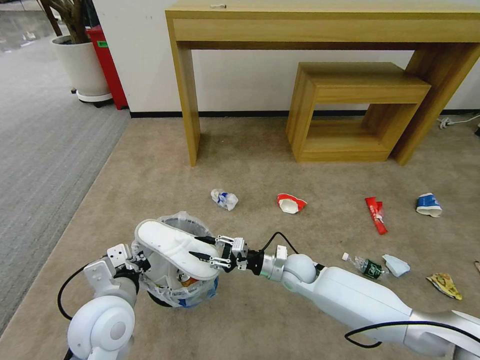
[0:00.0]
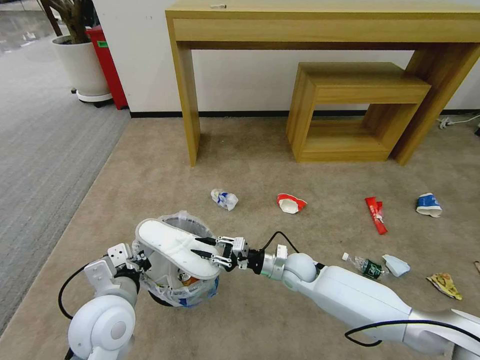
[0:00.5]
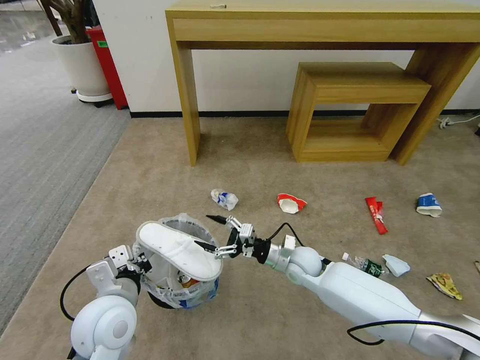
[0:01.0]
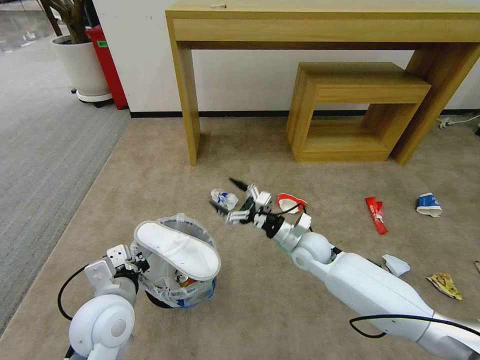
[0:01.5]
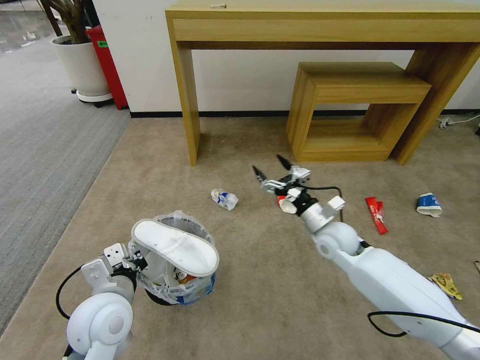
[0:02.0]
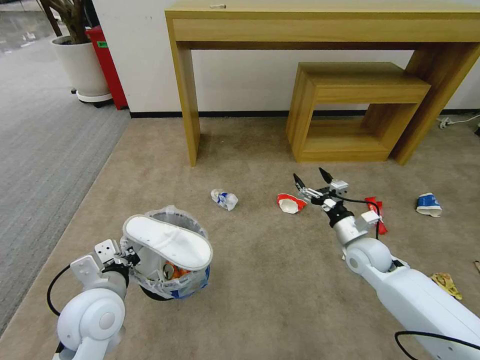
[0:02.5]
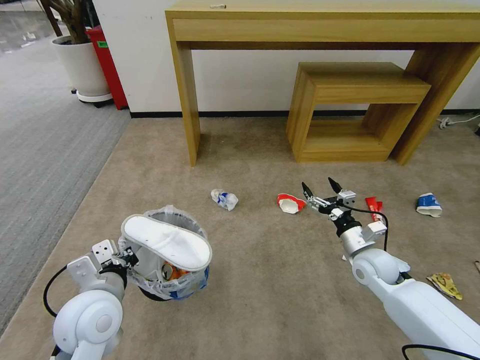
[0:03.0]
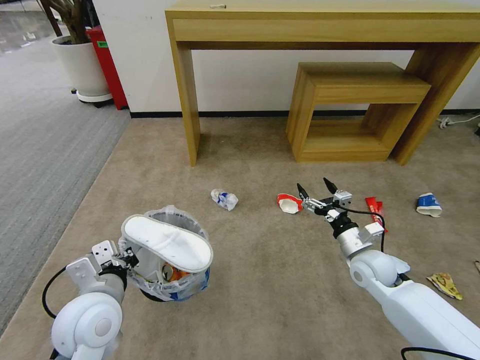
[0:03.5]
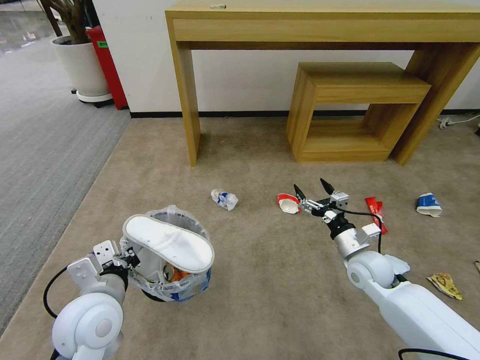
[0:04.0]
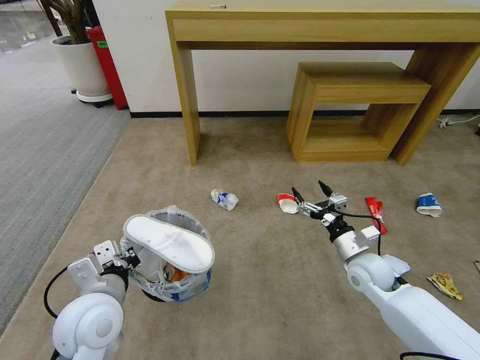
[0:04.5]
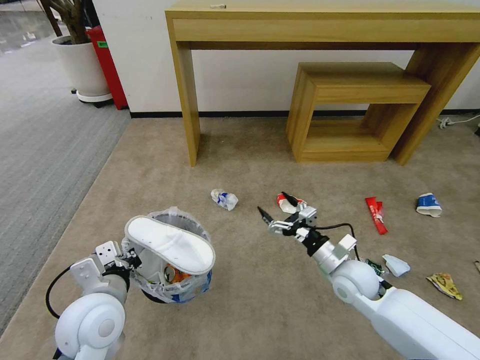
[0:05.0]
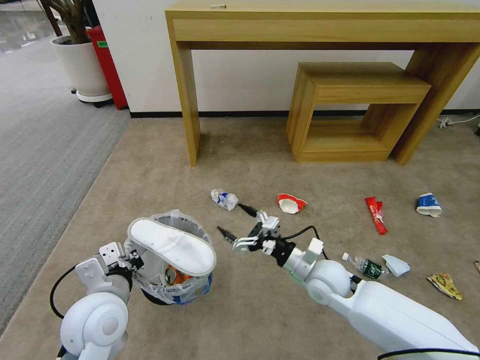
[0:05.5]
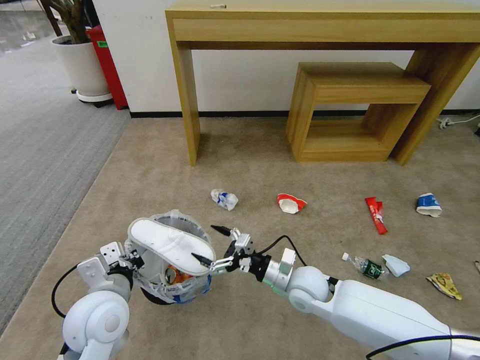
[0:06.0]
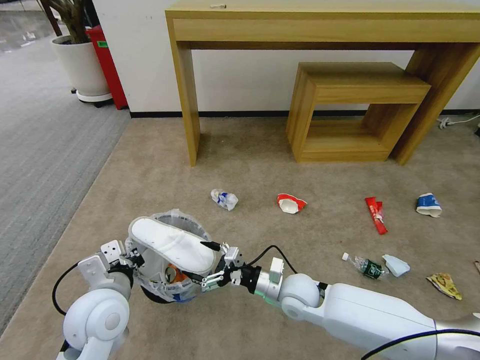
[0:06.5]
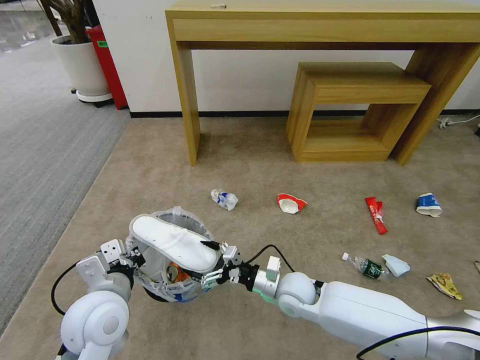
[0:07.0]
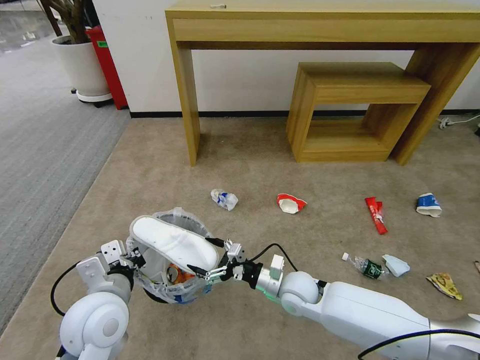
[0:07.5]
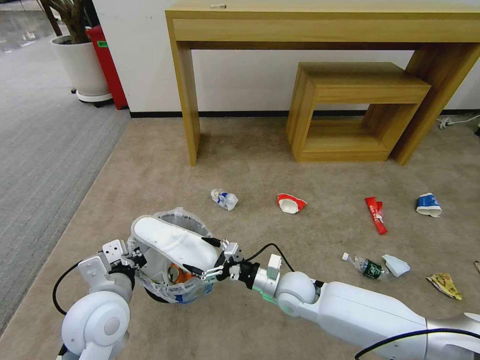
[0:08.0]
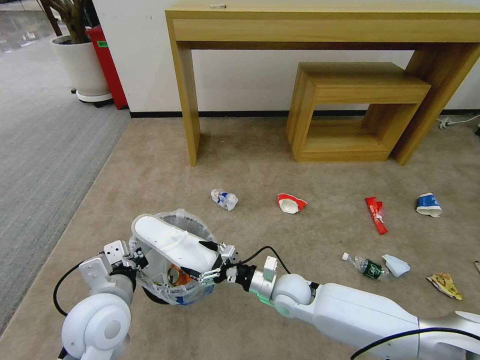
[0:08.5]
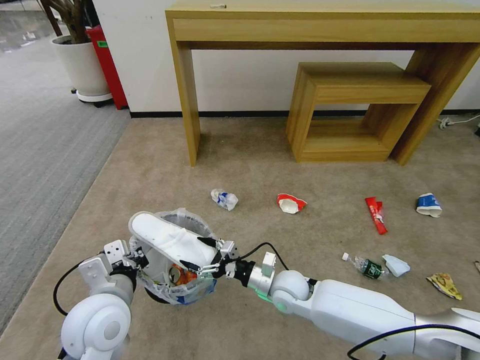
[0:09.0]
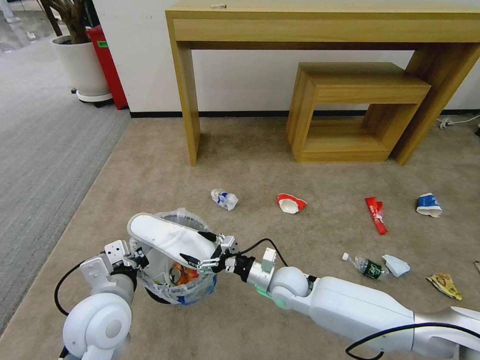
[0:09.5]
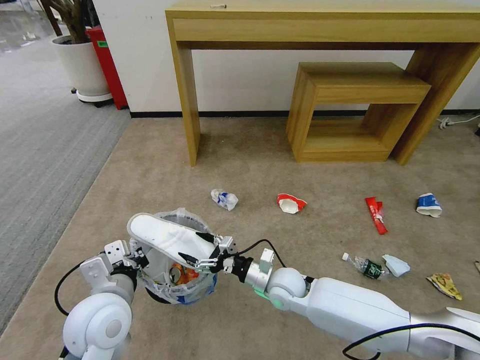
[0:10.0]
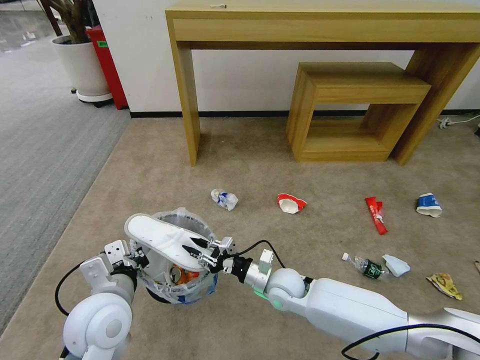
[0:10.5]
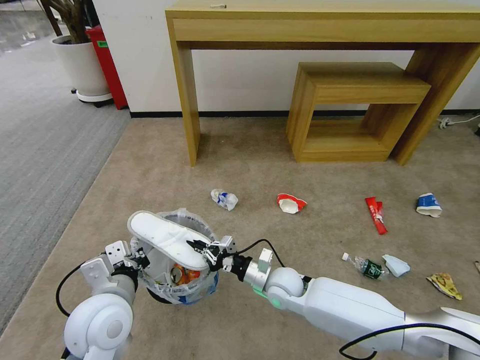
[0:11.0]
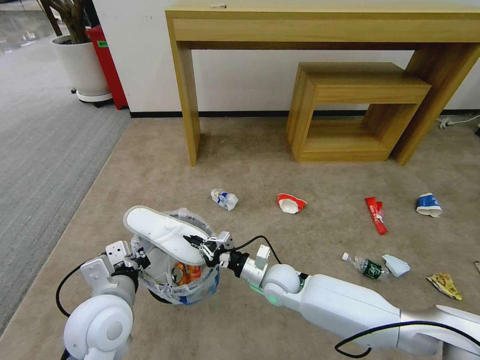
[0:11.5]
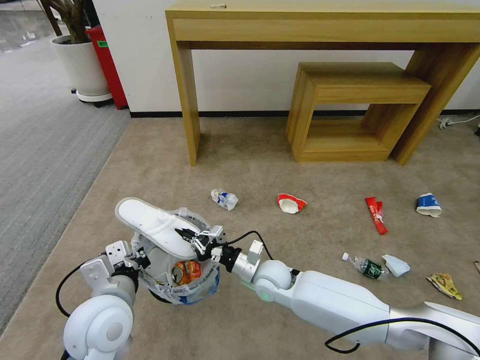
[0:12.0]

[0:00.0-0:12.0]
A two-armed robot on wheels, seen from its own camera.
Task of the whole recording: Pick up the trash bin and place the garbage on the floor into it.
0:00.0 to 0:02.0: The right gripper goes some 15 cm upward and to the right, and opens up.
0:02.0 to 0:04.0: The right gripper is displaced to the right and backward by roughly 10 cm.
0:04.0 to 0:06.0: The right gripper shifts roughly 15 cm to the left.
0:06.0 to 0:10.0: The grippers move only a little.
0:10.0 to 0:12.0: The right gripper closes its fingers.

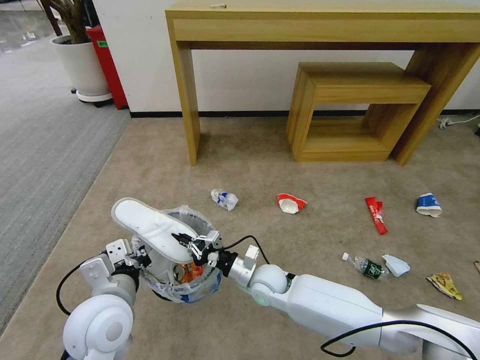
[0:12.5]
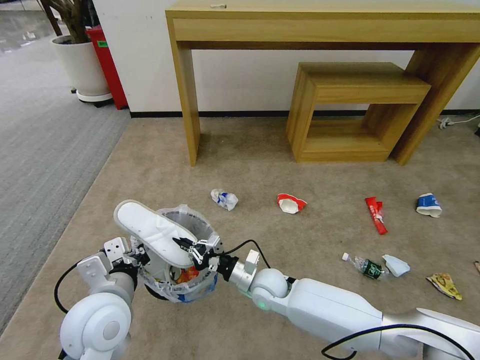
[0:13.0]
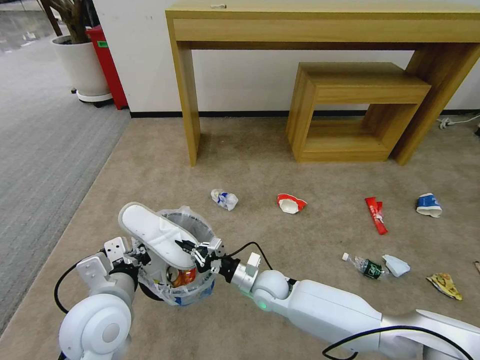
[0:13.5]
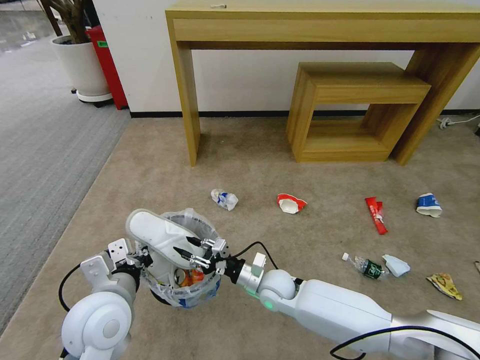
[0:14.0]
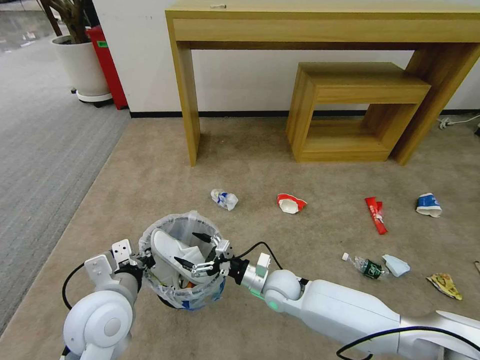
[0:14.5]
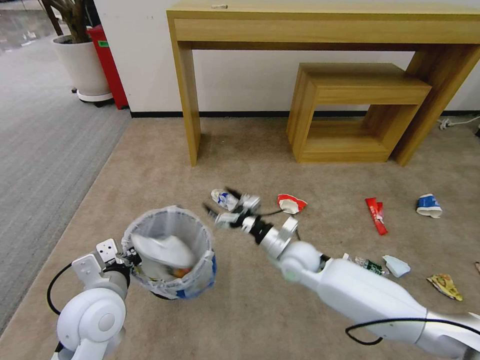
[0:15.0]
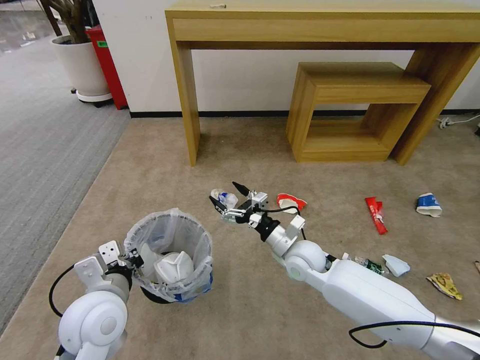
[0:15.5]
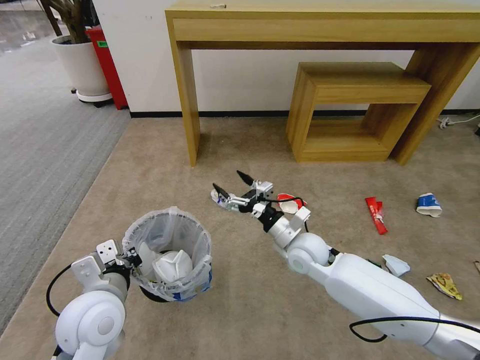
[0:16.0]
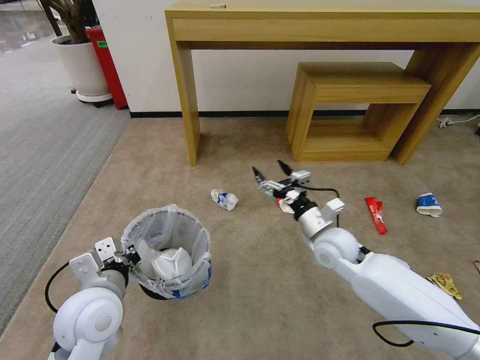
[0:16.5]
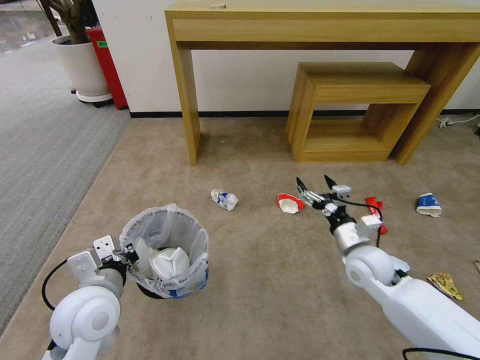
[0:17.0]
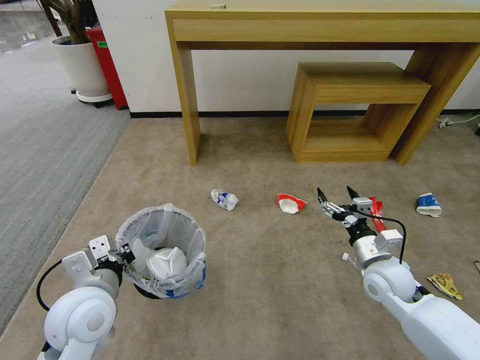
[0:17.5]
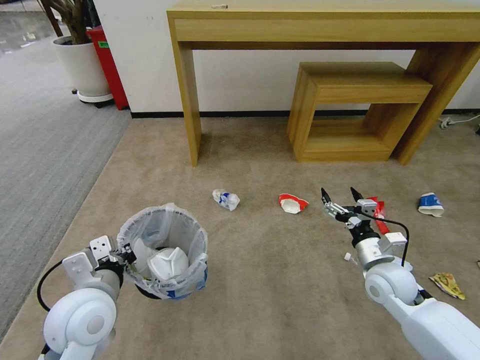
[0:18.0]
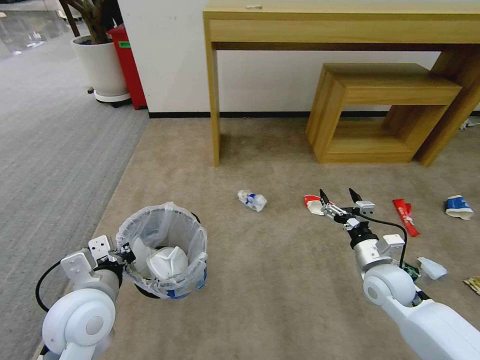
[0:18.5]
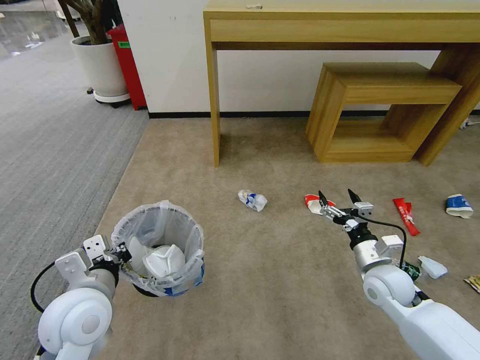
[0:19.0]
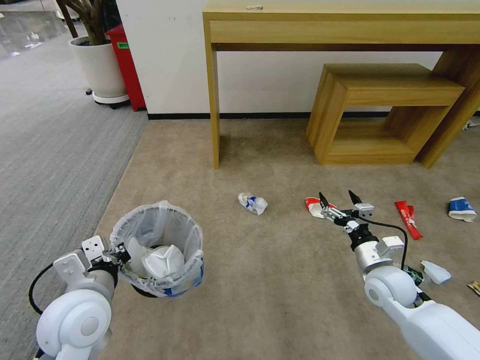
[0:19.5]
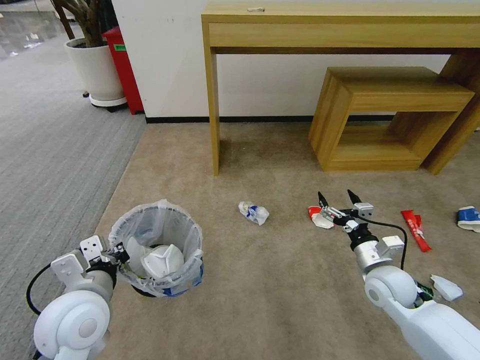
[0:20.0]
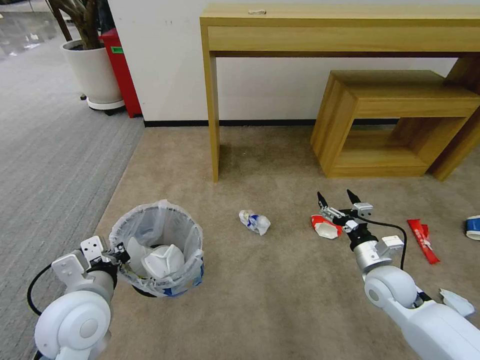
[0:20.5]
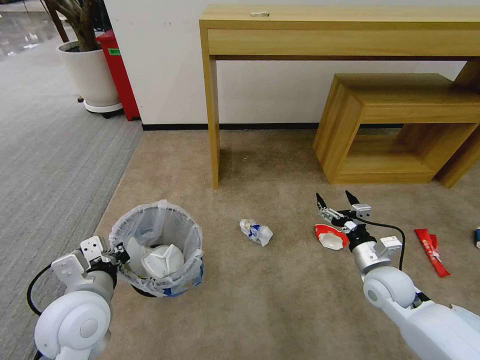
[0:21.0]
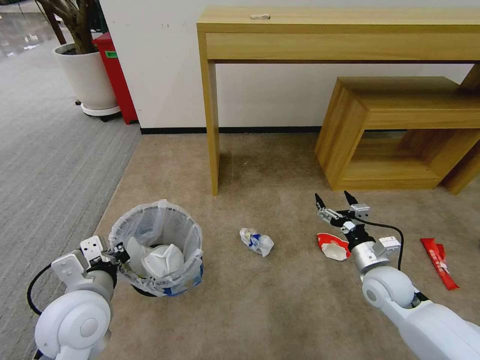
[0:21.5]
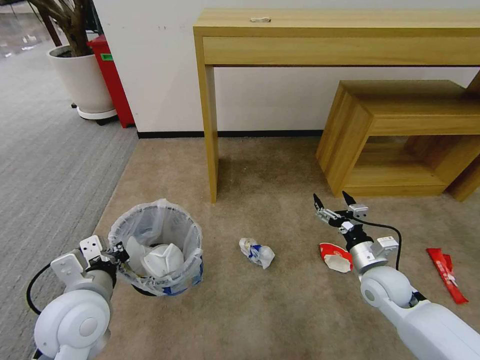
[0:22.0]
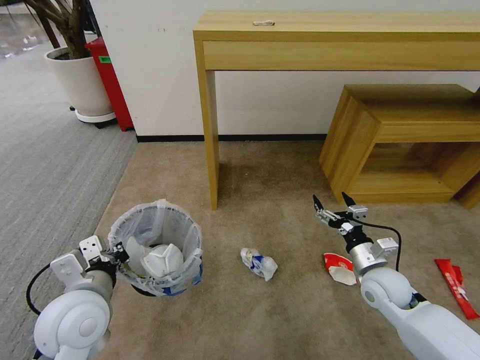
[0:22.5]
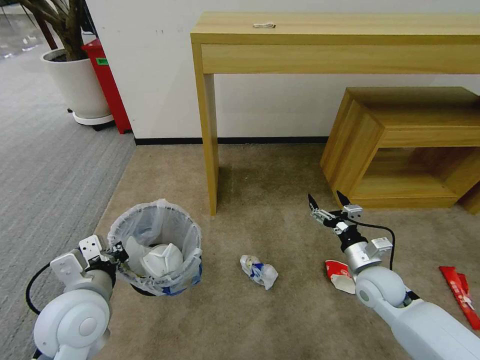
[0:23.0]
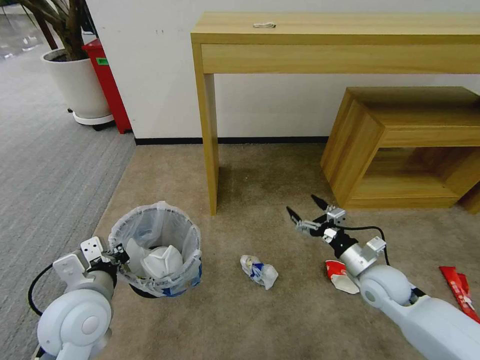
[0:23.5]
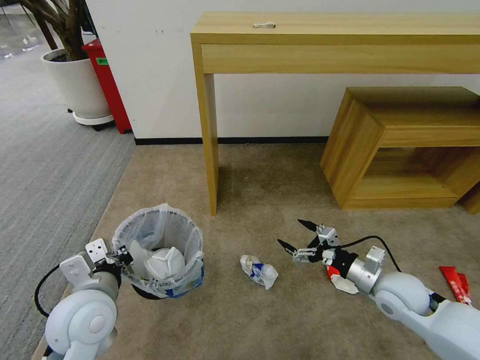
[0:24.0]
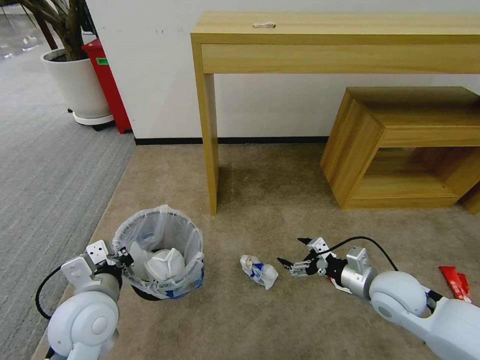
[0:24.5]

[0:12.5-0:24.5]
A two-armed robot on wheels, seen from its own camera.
Task of the whole recording: Pick up the trash bin and place the garbage on the floor into it.
0:12.5 to 0:14.5: The right gripper opens.
0:14.5 to 0:16.5: The right gripper heads upward and to the right, covering approximately 15 cm.
0:16.5 to 0:18.5: The right gripper shifts about 15 cm to the right and backward.
0:22.5 to 0:24.5: The right gripper shifts by some 5 cm.

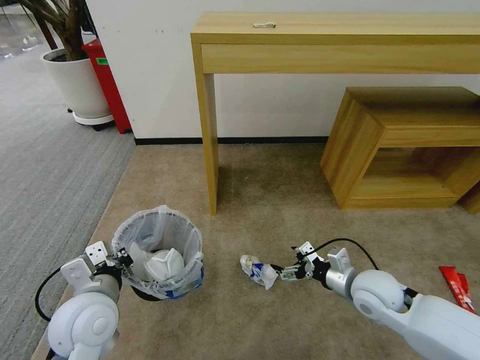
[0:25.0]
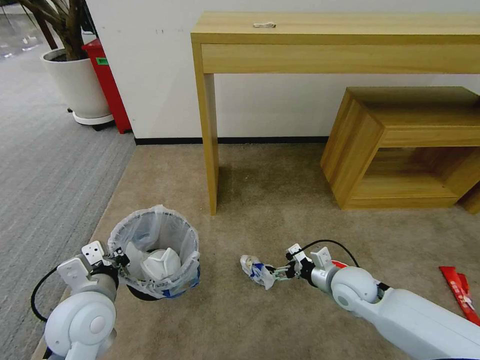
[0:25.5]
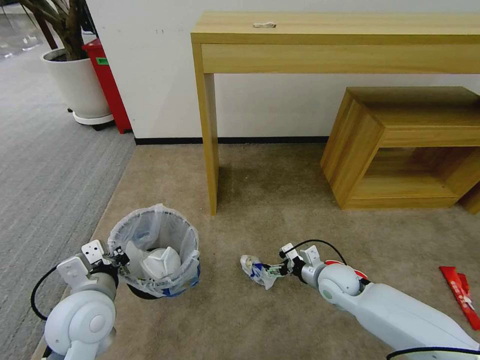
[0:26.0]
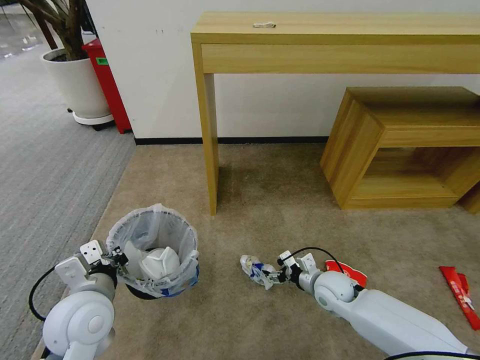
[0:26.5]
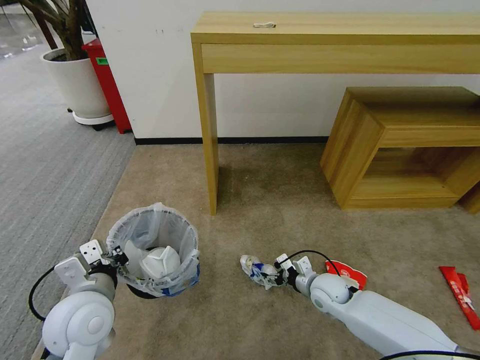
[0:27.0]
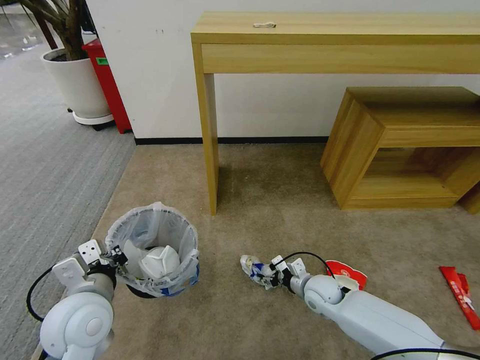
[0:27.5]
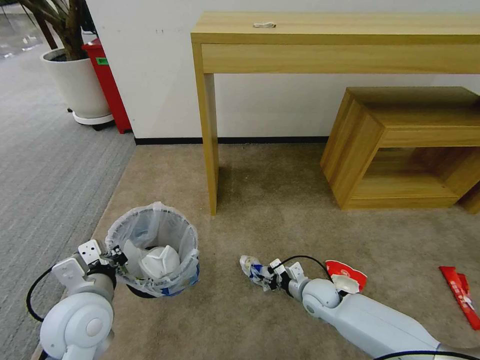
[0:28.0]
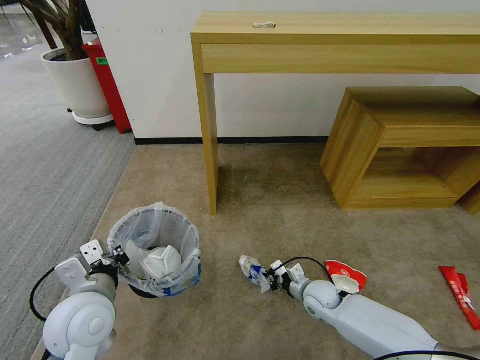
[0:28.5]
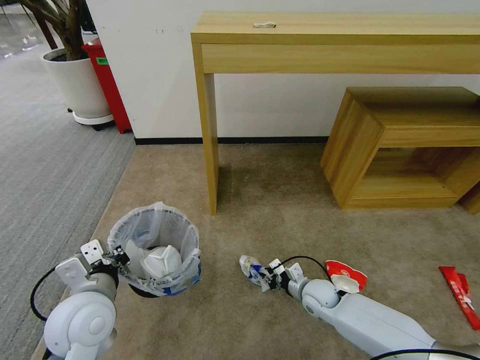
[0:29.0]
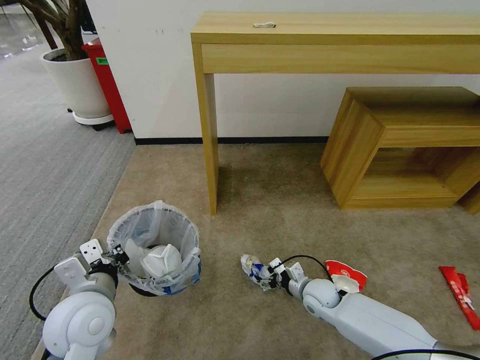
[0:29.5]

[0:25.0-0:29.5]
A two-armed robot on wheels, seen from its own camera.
Task of the whole recording: Pick up the trash bin and place the garbage on the floor into it.
0:25.0 to 0:27.0: The right gripper is displaced downward by approximately 10 cm.
0:27.0 to 0:29.5: The right gripper closes, then reopens.
